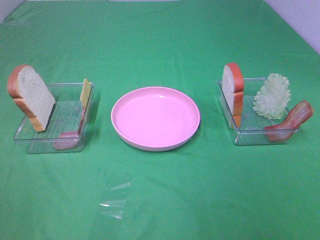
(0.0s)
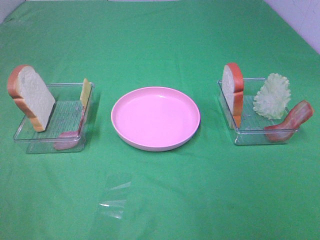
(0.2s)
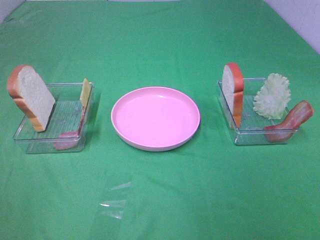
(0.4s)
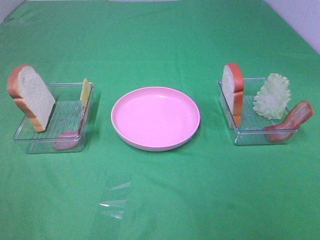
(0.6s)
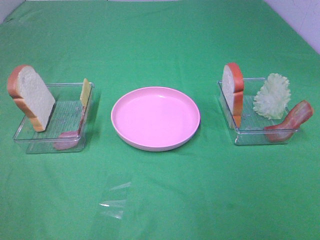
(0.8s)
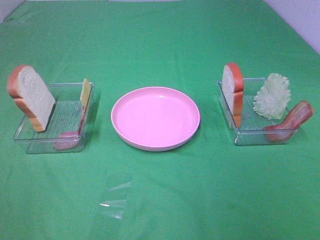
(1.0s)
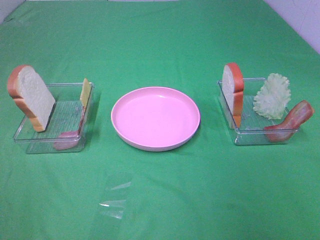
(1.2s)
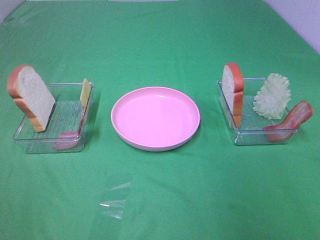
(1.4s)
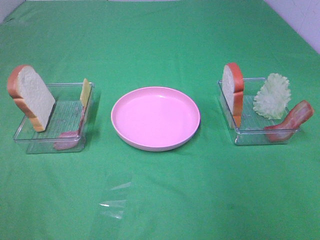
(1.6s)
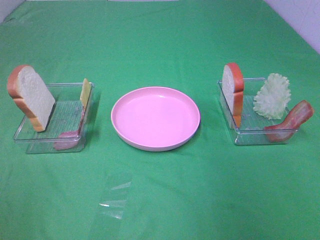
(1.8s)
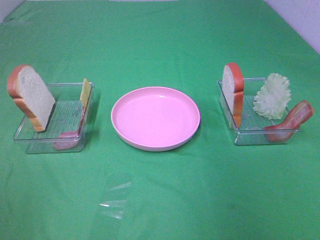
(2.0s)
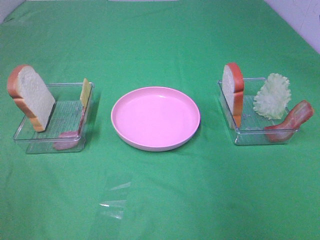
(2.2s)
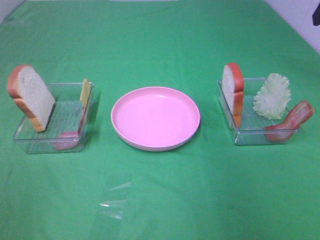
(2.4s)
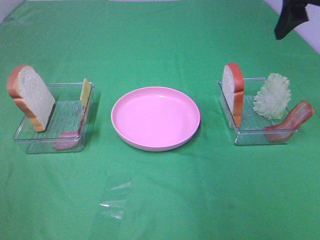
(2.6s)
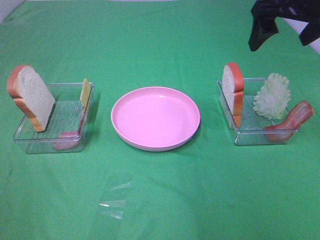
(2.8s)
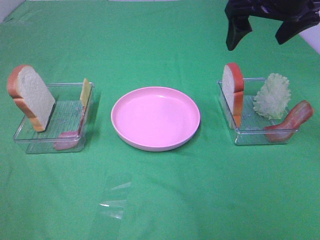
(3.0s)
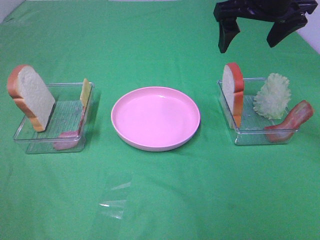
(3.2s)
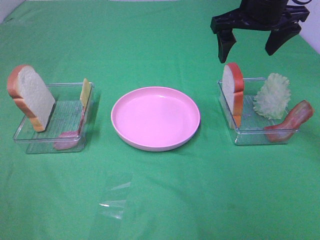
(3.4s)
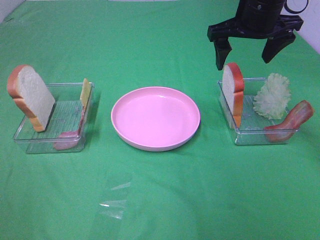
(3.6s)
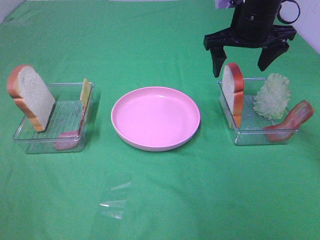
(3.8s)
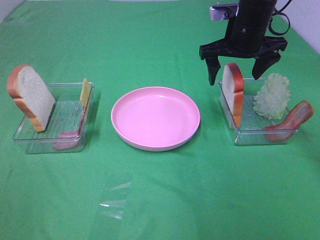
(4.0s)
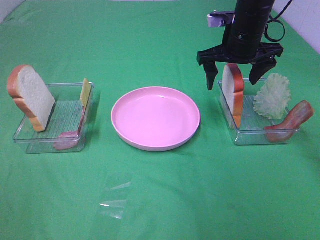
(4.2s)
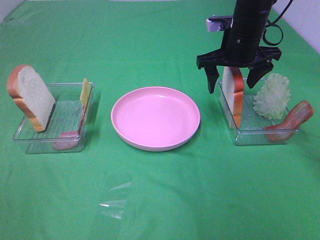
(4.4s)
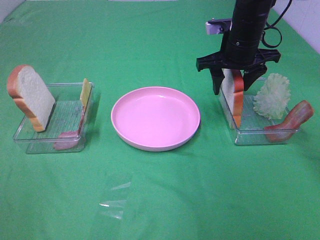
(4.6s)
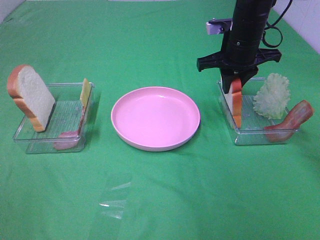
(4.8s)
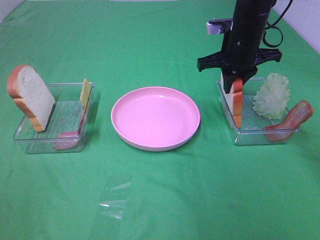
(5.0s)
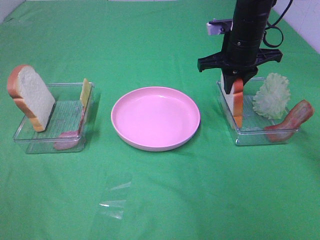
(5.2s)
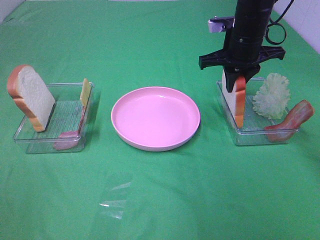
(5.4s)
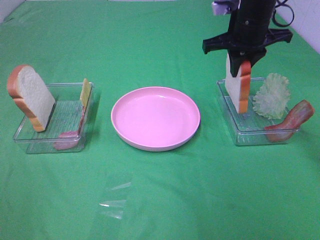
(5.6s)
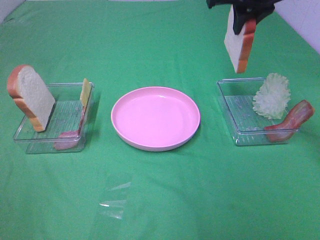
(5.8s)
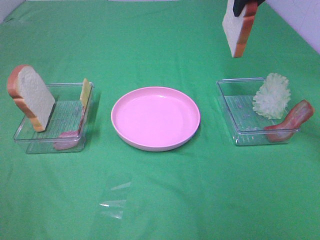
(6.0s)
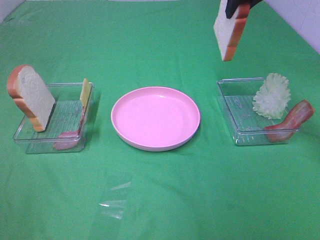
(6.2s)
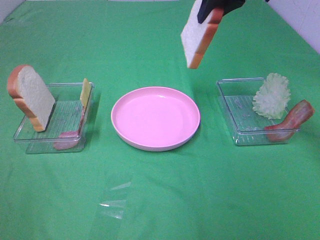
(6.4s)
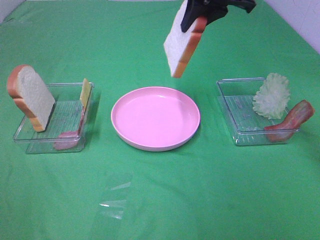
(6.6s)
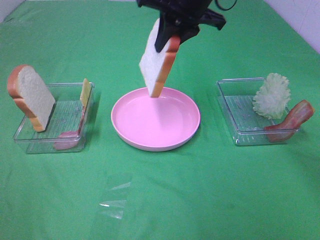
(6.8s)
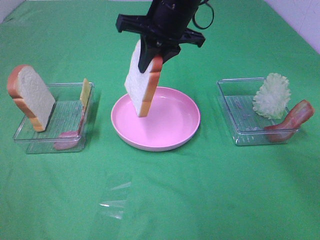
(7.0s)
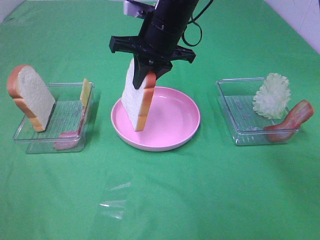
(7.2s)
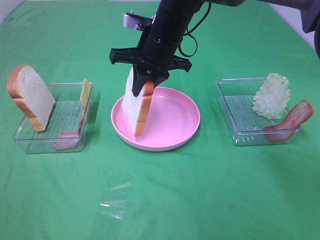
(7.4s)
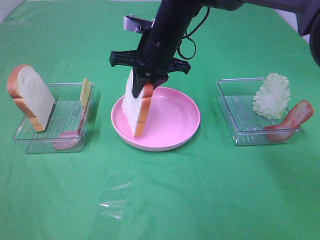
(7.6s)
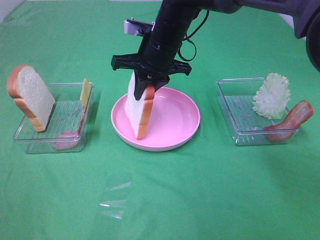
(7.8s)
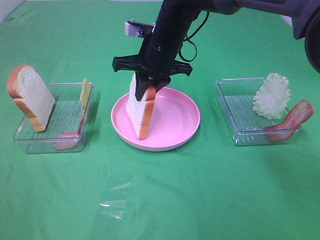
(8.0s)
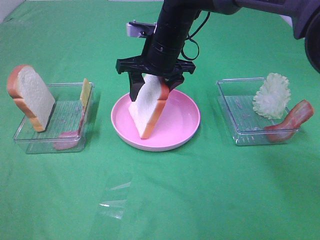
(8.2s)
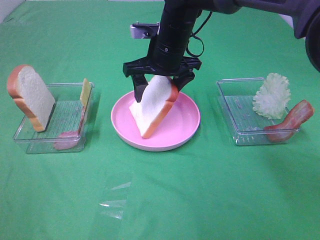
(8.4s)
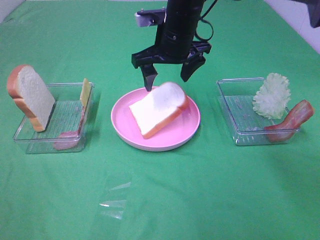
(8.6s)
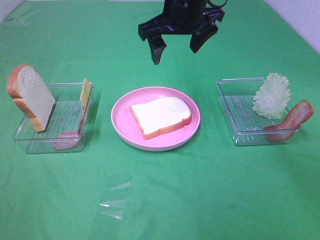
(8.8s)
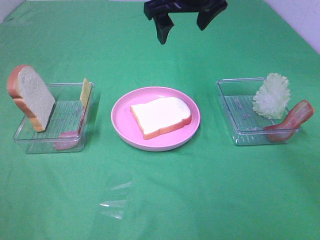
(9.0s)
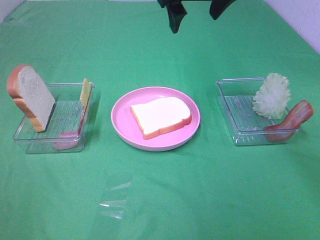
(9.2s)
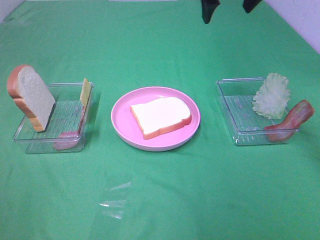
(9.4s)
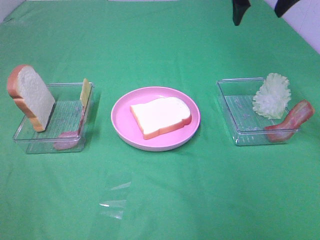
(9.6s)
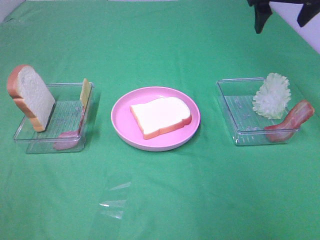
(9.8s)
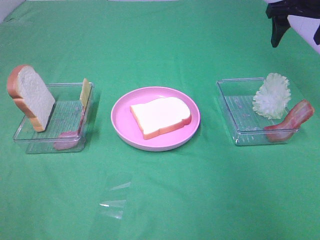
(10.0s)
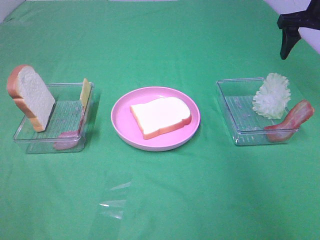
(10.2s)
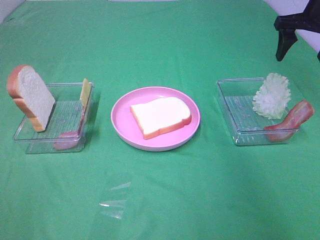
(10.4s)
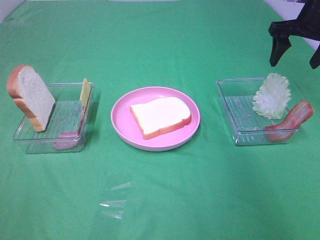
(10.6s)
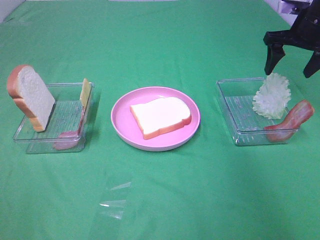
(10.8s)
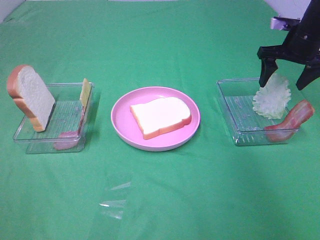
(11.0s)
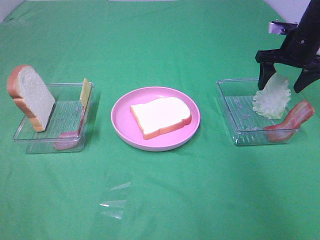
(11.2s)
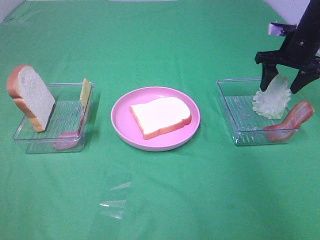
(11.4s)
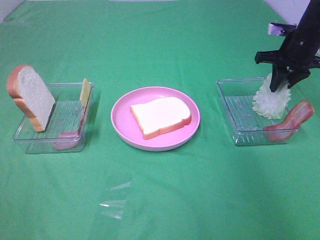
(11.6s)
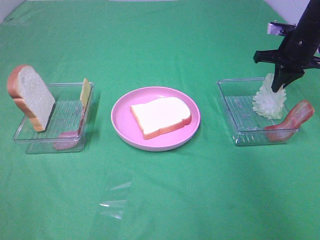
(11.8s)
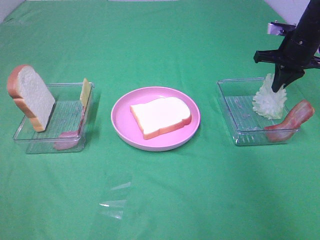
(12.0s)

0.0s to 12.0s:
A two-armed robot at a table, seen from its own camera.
Task of the whole recording: Make sandwiches.
Step, 0.0s to 5.4s: Right hand:grab the bread slice.
Step, 5.6s to 8.6s: Right hand:place the bread slice on the plate.
1.6s to 3.0s: The right gripper moves forward and to the left, about 25 cm.
3.0s to 4.4s: The right gripper travels downward and forward by roughly 15 cm.
4.4s to 6.0s: The right gripper heads upward, covering approximately 15 cm, and closes up.
6.0s to 7.6s: The right gripper goes about 20 cm to the left and downward.
7.6s to 9.0s: The right gripper goes approximately 10 cm upward, and opens.
9.0s to 10.4s: The right gripper travels to the right by some 25 cm.
10.4s to 12.0s: The right gripper travels downward by roughly 10 cm, and closes its fingers.

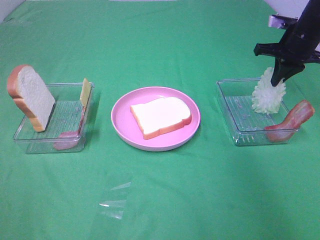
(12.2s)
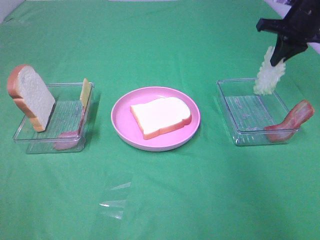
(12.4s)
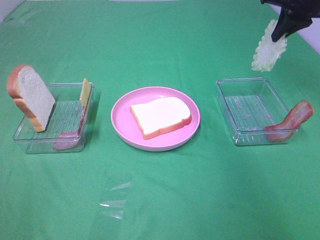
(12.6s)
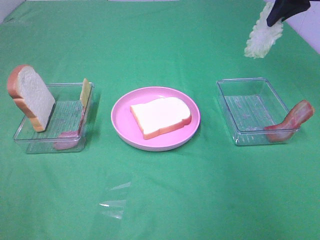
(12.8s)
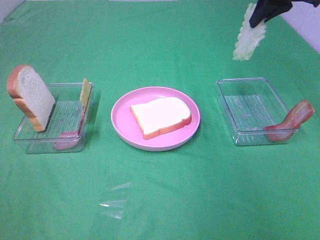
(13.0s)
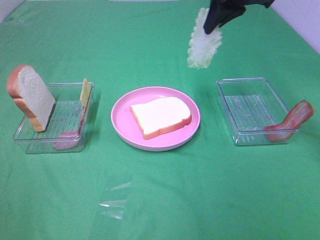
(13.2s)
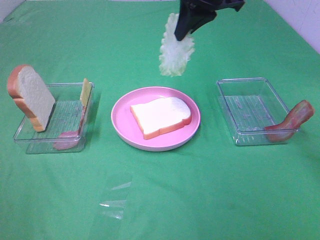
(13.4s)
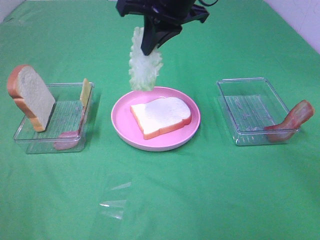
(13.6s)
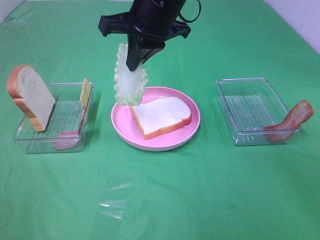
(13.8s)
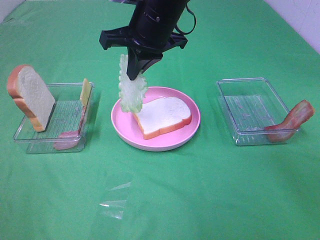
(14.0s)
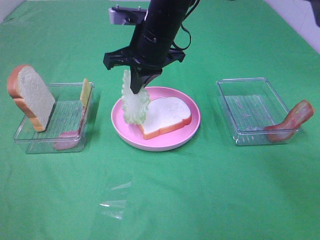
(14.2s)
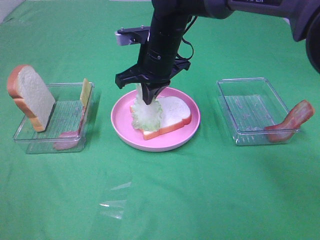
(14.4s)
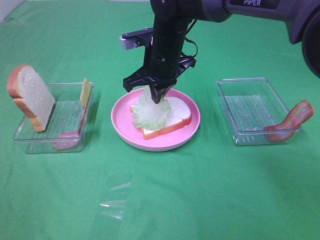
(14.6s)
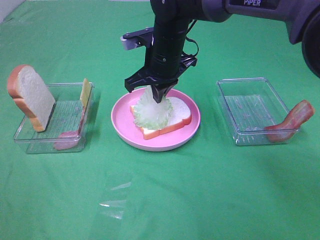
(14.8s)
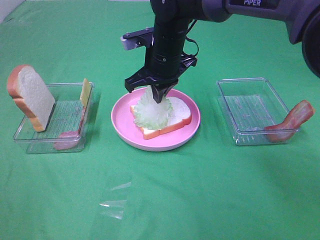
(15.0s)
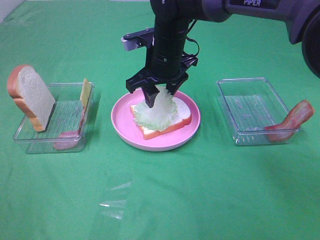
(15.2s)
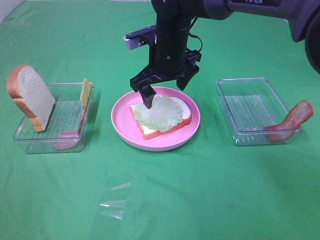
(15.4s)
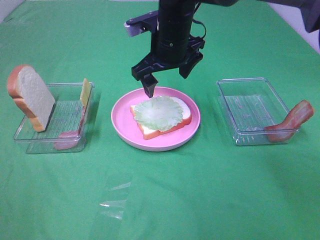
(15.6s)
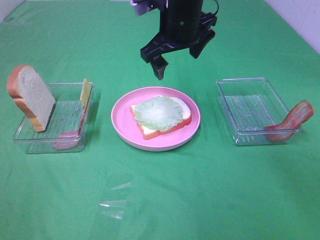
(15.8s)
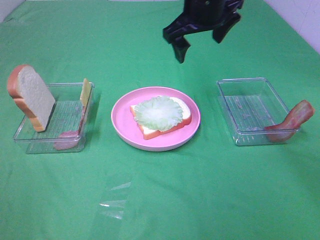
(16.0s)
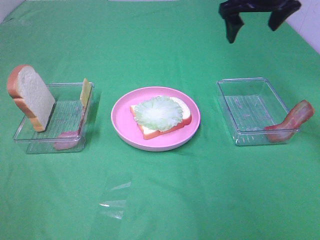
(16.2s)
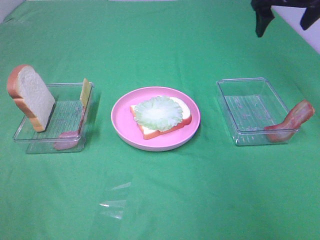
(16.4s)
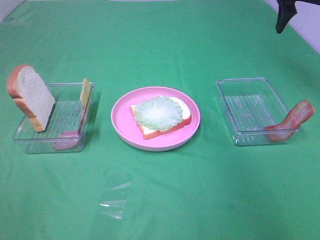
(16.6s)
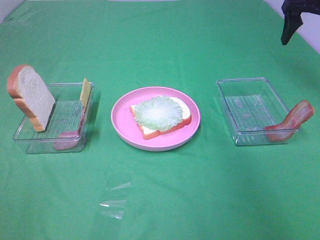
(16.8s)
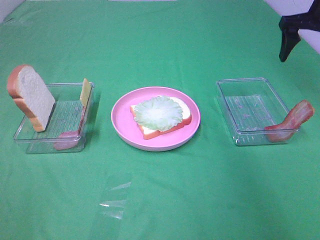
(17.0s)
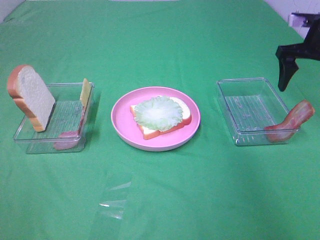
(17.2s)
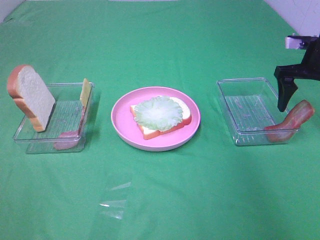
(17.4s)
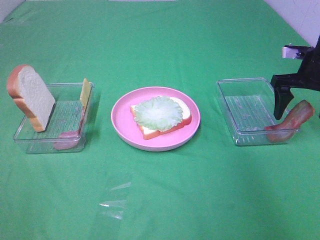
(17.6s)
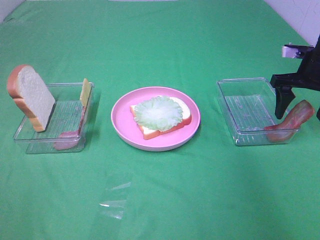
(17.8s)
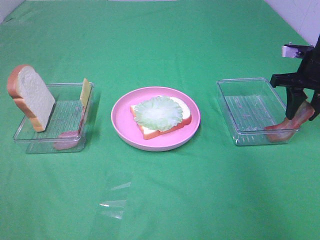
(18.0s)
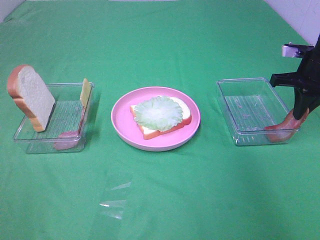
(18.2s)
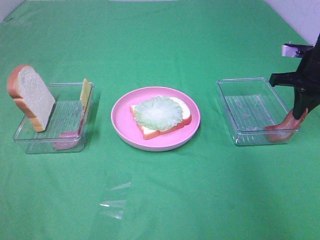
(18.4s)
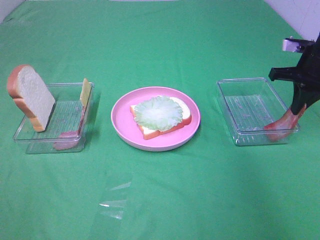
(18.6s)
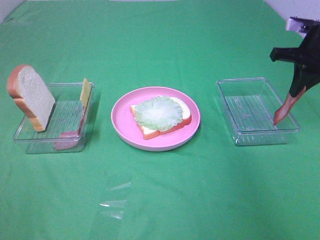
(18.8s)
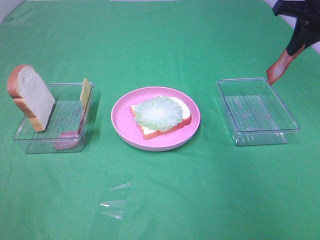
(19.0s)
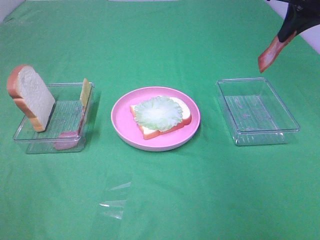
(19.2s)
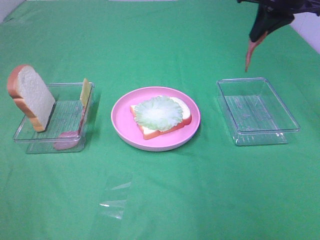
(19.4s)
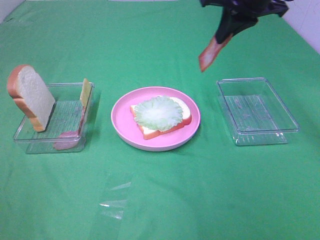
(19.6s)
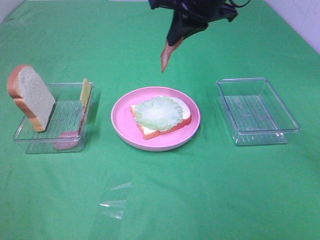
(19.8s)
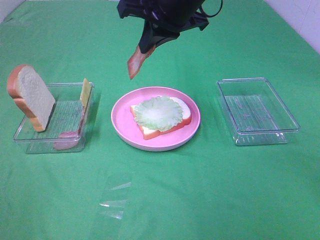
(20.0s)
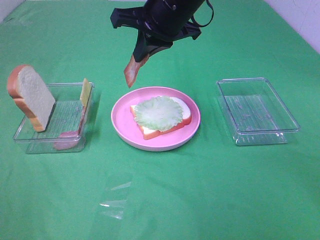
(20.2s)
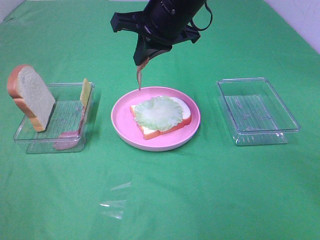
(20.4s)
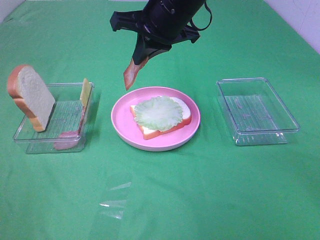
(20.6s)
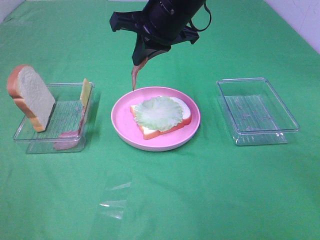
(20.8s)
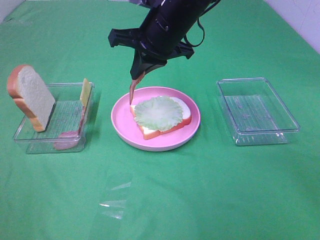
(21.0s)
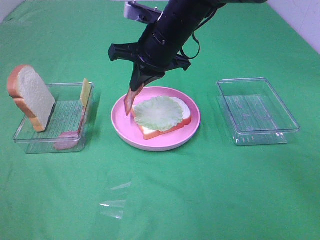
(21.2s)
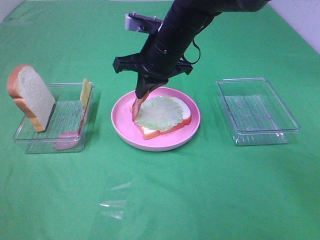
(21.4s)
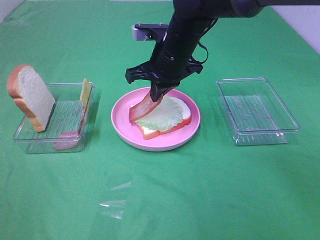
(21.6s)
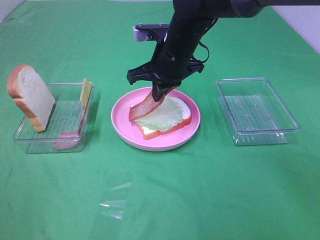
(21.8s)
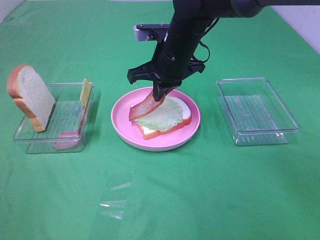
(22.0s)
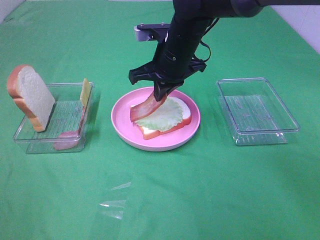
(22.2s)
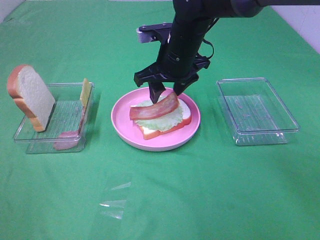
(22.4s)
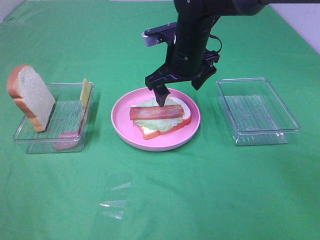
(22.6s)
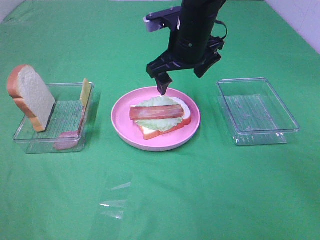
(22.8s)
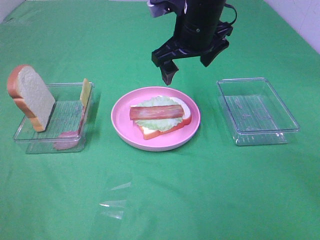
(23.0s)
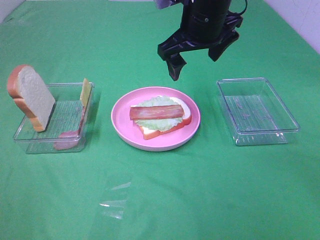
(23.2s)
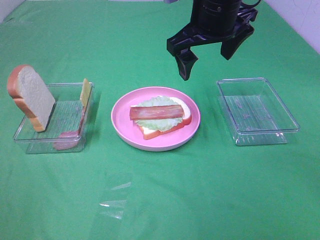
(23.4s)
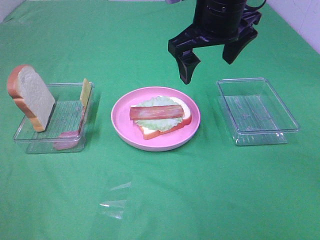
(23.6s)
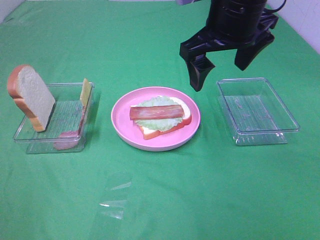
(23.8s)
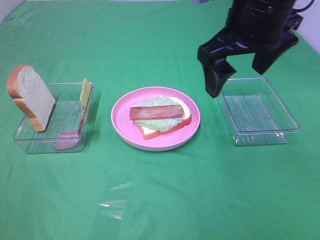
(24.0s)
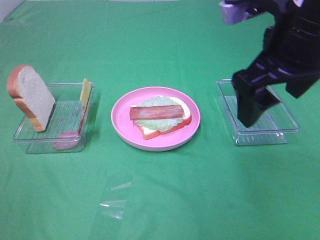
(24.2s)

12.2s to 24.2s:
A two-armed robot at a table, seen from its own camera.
Task of the whole recording: Make sandwiches.
Step, 12.4s to 15.4s: Right hand:place the lettuce slice on the bread slice.
Step, 15.6s to 18.6s: Right hand:grab the bacon.
Step, 18.8s to 22.6s: Right hand:place bacon on lettuce slice.
12.2s to 13.8s: The right gripper shifts roughly 30 cm to the left.
13.8s to 15.2s: The right gripper travels downward by about 10 cm, and opens.
15.2s to 16.6s: The right gripper shifts approximately 30 cm to the right and upward.
16.6s to 18.2s: The right gripper goes roughly 15 cm downward and backward, and closes its fingers.
18.2s to 19.8s: The right gripper shifts about 25 cm to the left and upward.
19.8s to 21.2s: The right gripper heads downward and to the left, covering some 10 cm.
21.2s to 22.6s: The right gripper opens up.
22.6s to 24.2s: The right gripper is displaced backward, upward and to the right by approximately 20 cm.
